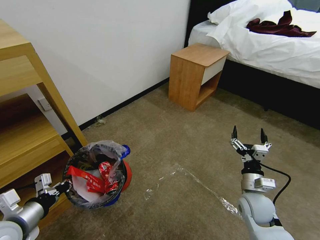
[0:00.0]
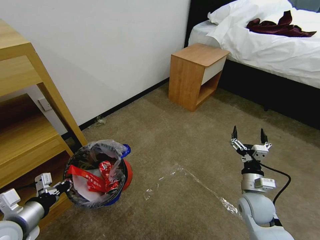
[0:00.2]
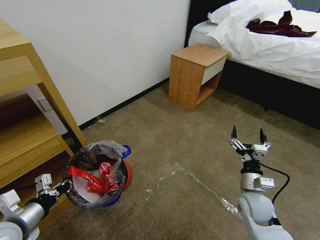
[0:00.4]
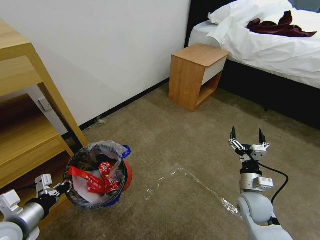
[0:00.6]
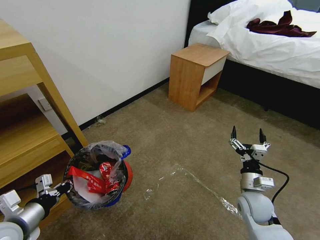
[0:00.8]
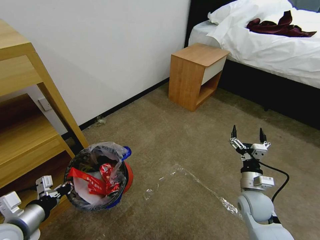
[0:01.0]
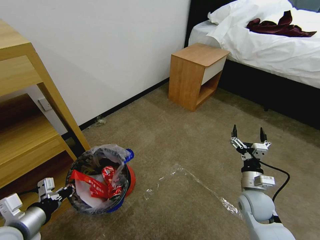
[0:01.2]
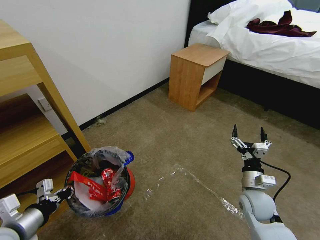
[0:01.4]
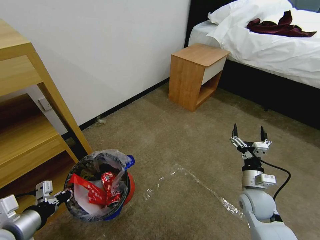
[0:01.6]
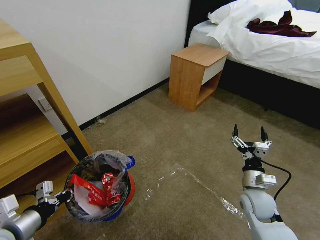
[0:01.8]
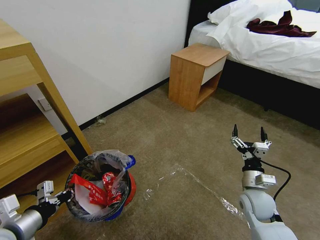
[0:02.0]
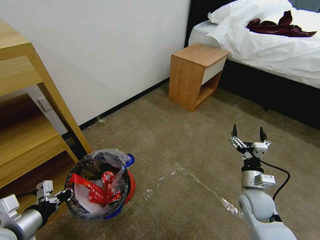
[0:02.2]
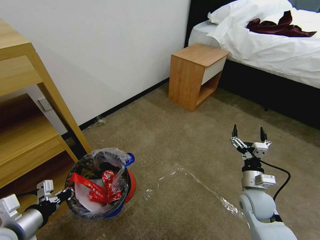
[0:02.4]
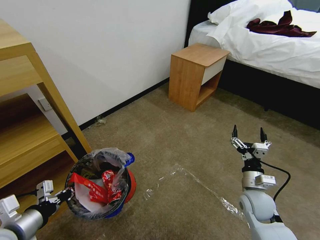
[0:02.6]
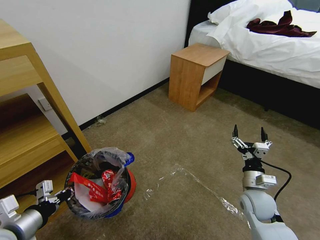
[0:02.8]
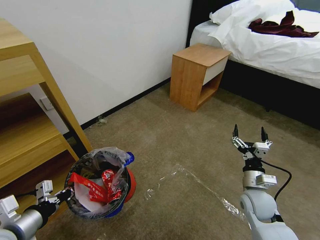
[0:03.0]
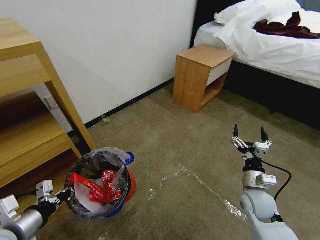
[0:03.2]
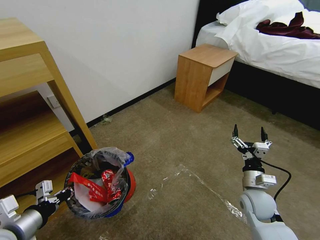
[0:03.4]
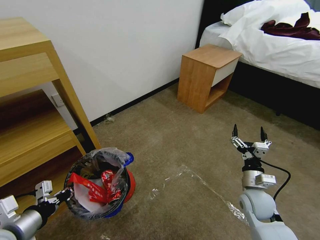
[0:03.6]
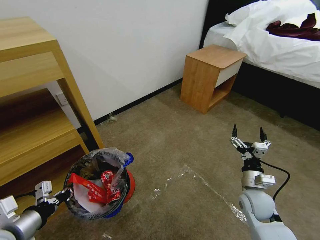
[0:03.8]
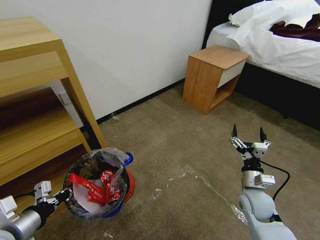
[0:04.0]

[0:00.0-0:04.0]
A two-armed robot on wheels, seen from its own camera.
Task of the whole recording: Pick up the trash bin and place the garbage on the floor into it.
0:00.0 to 0:01.4: The grippers make only small movements.
0:01.4 to 0:04.0: Both grippers stay about where they are.
